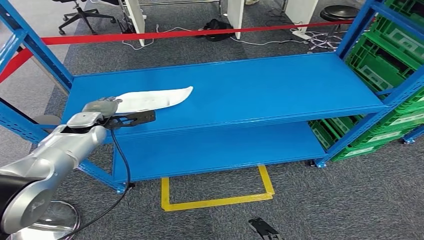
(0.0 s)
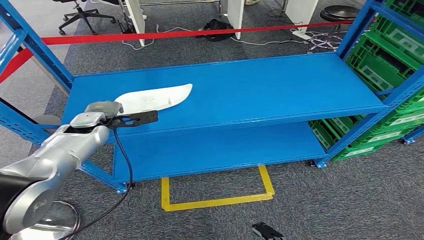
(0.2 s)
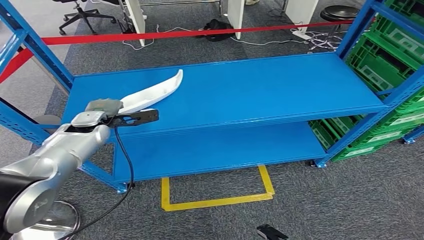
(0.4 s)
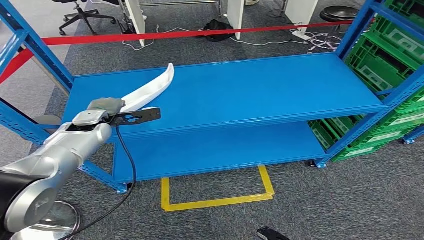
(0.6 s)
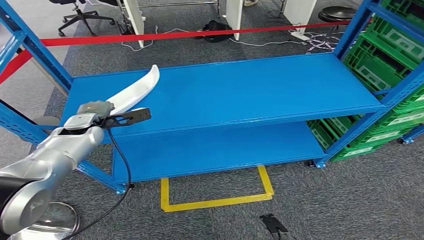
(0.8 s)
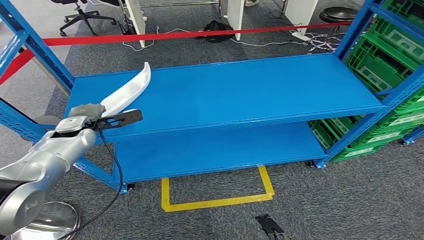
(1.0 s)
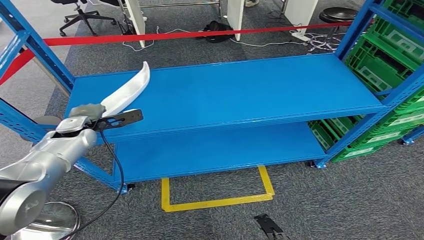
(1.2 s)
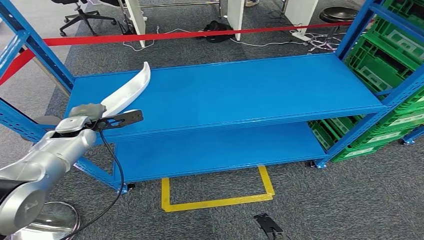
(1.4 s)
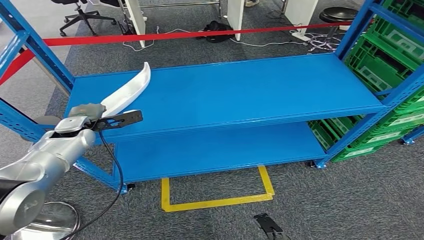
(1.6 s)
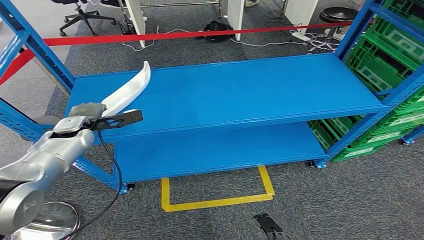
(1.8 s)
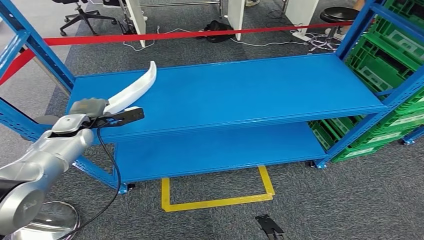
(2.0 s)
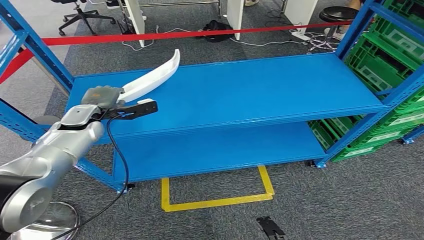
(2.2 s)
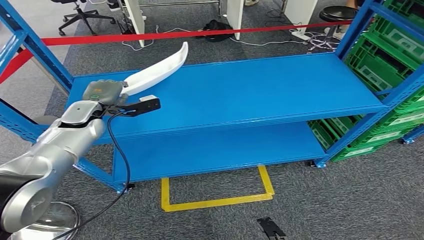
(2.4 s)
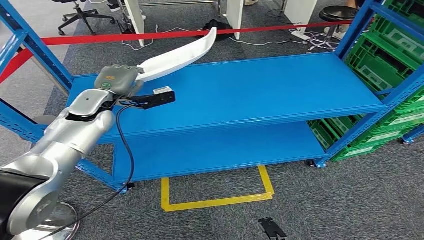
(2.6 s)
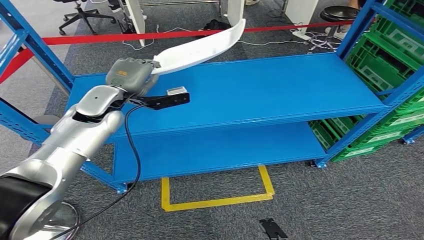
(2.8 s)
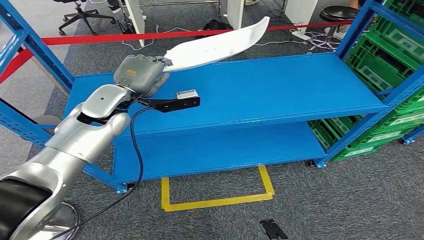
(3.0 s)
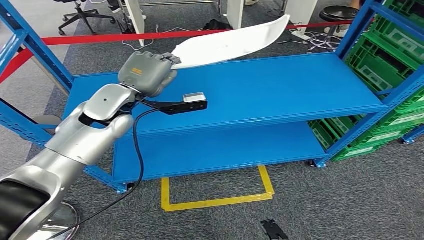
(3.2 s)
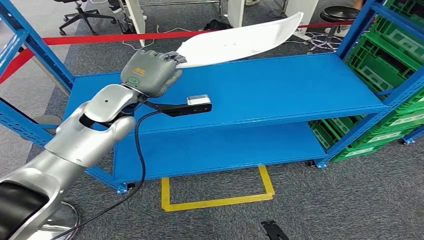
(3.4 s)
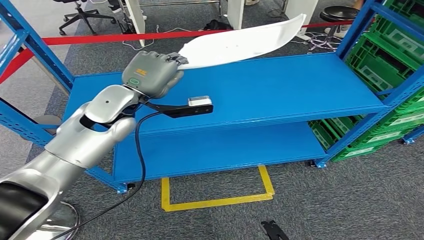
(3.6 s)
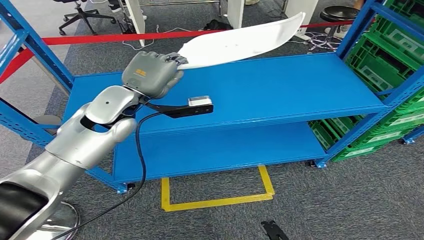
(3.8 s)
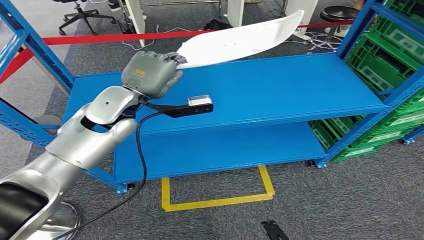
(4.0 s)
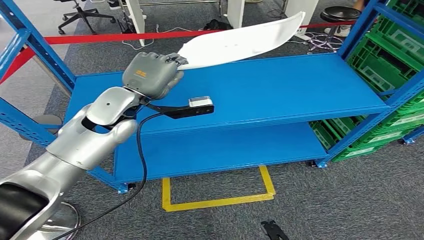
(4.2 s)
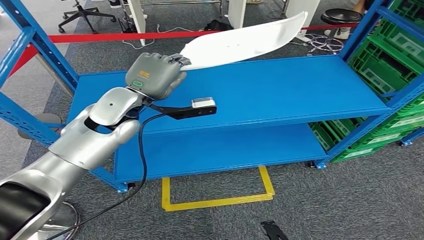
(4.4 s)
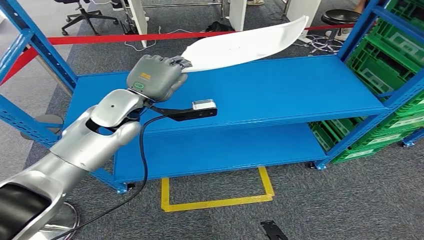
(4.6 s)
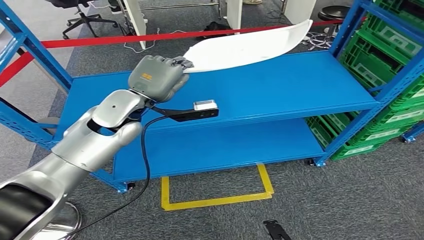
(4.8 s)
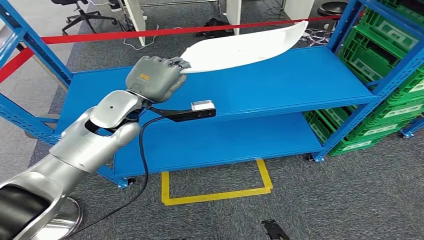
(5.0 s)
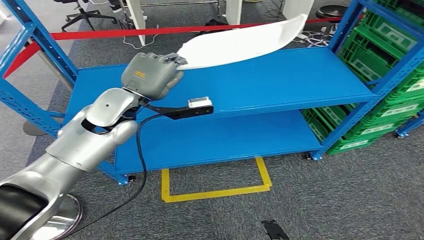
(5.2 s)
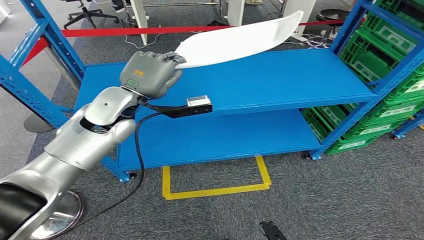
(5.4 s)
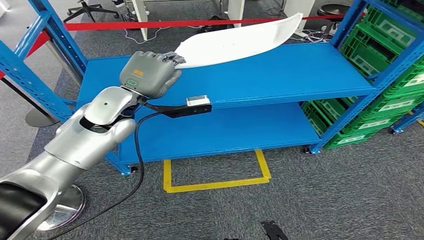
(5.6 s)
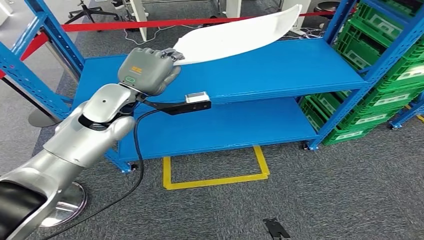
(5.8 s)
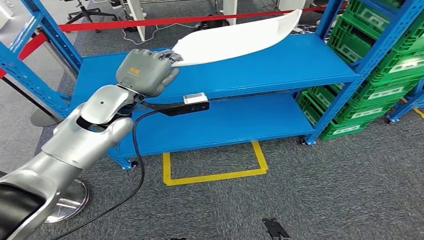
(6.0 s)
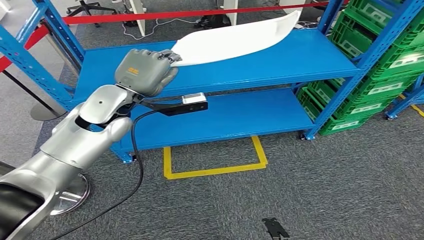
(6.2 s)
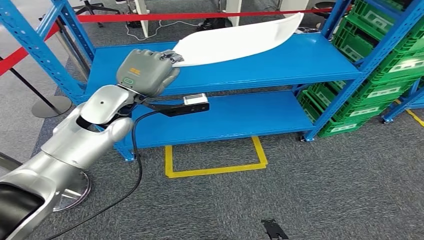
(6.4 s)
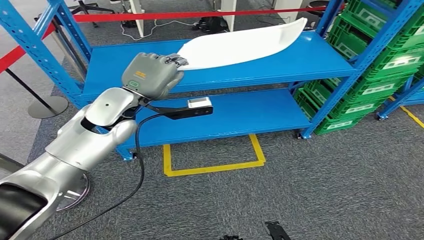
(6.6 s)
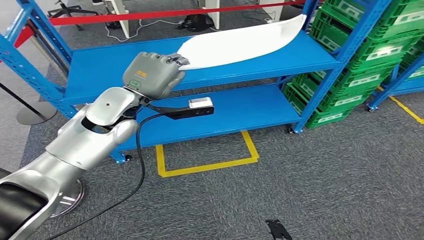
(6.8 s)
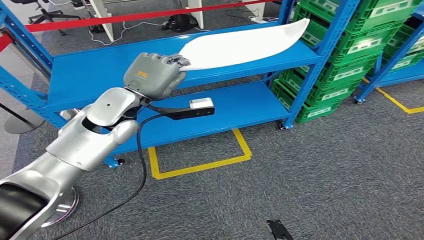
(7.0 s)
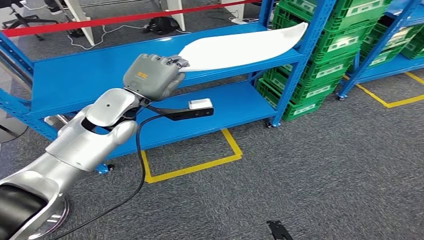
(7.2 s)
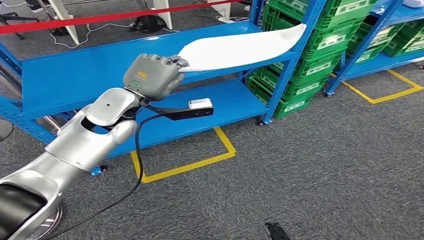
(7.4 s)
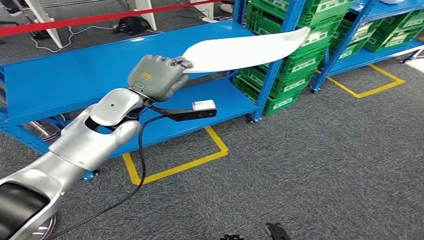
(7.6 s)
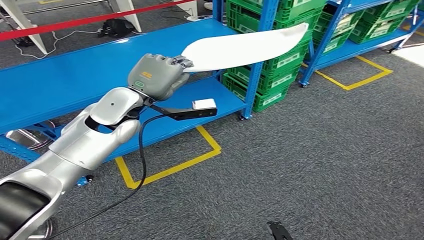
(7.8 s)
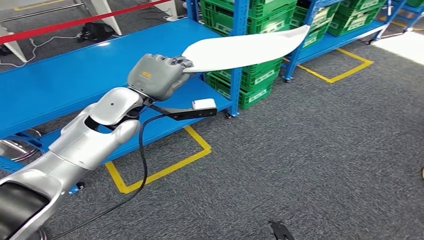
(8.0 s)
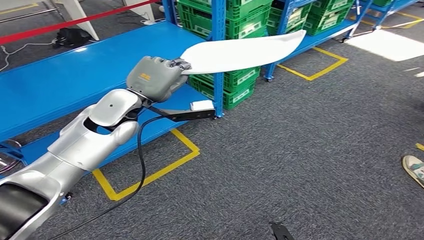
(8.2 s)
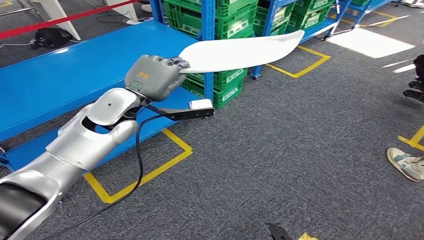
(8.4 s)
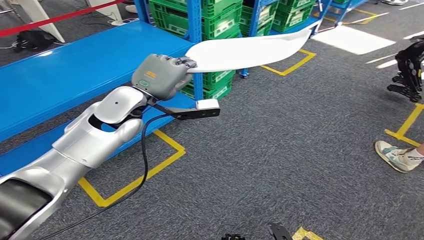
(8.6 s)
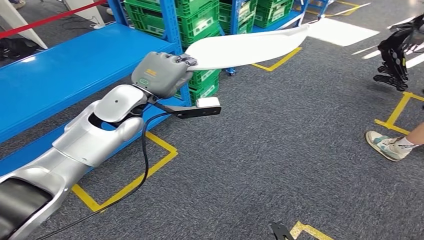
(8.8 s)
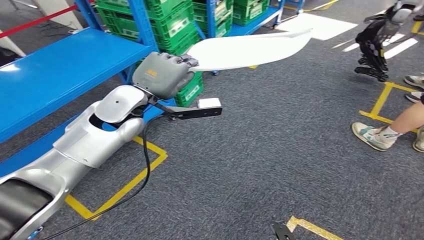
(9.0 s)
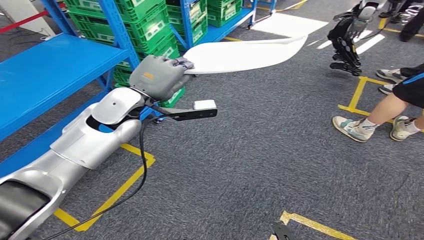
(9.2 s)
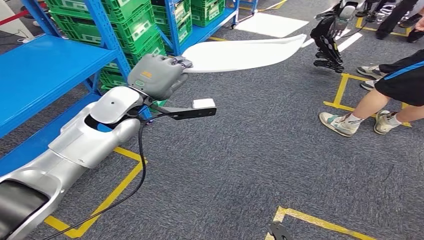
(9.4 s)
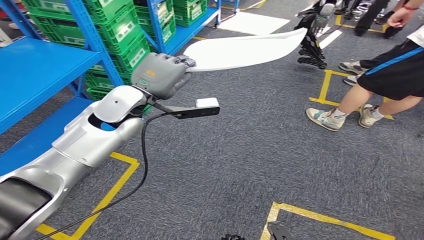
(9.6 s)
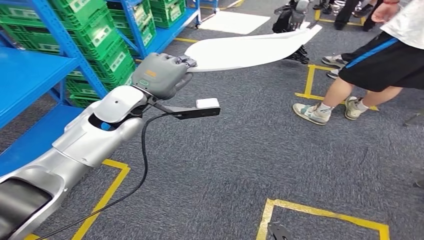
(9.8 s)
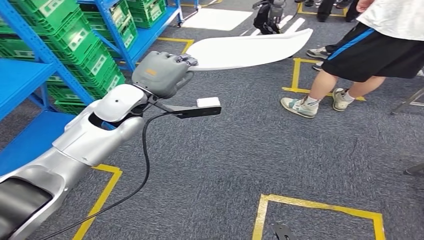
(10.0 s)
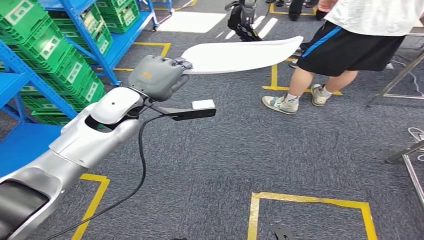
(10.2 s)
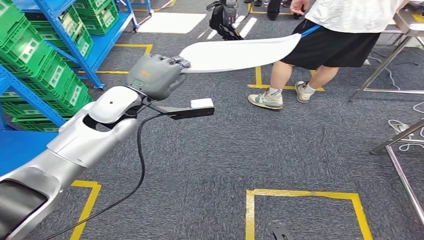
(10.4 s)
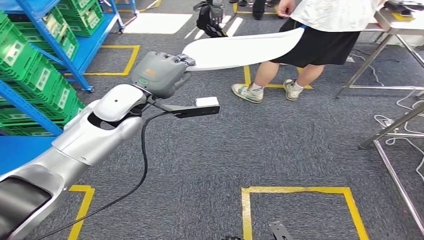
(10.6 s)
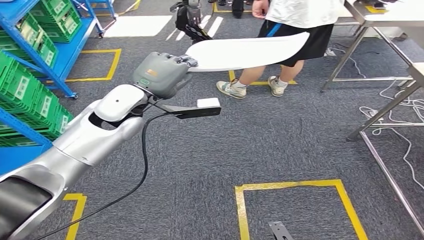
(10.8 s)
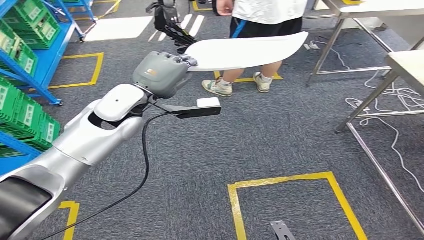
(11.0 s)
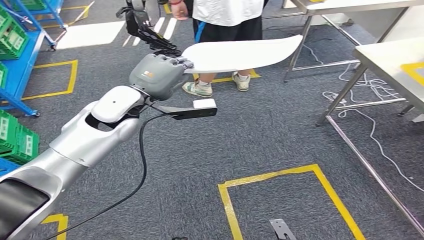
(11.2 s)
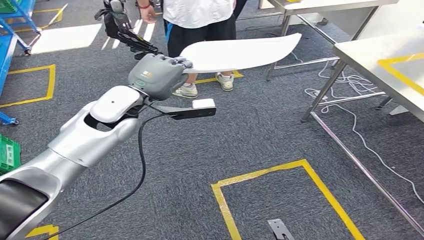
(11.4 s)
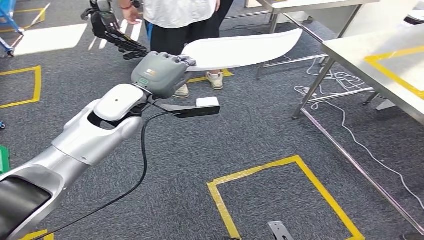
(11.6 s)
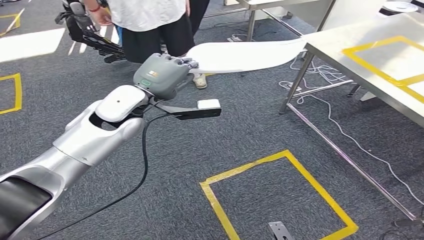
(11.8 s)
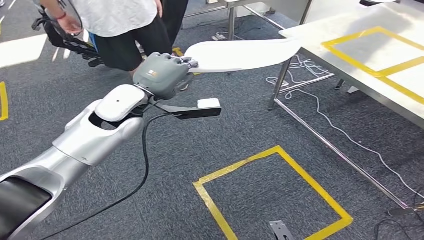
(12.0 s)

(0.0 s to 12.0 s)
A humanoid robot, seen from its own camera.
Step, 0.0 s - 3.2 s: Pick up the small component from the shelf.
0.0 s - 1.6 s: The hands stay close to where they were, moving slightly.
1.6 s - 3.0 s: The left hand travels to the right and upward by approximately 20 cm.

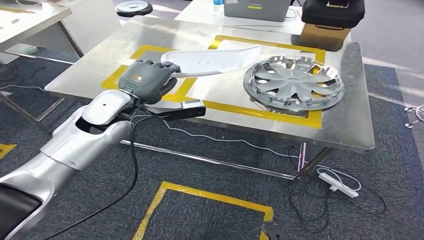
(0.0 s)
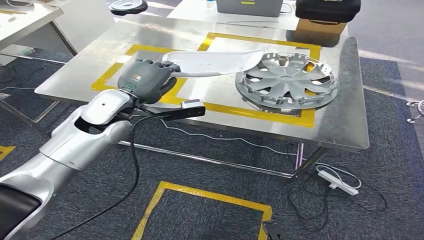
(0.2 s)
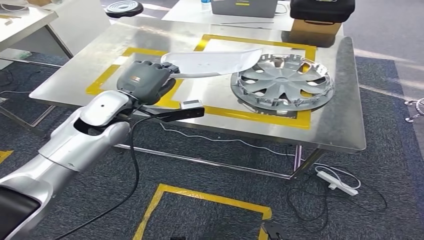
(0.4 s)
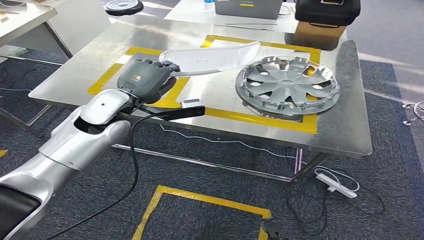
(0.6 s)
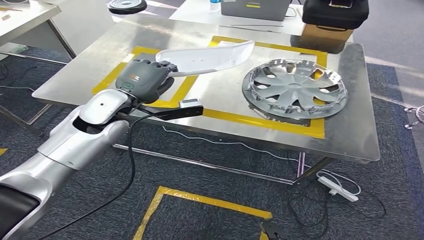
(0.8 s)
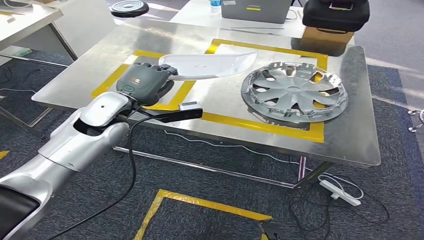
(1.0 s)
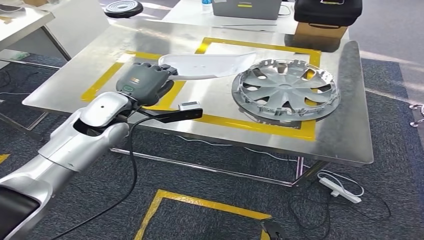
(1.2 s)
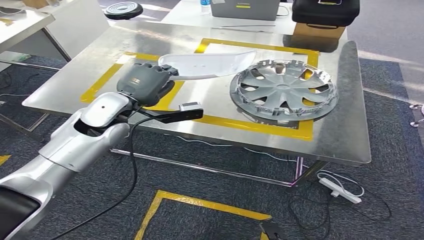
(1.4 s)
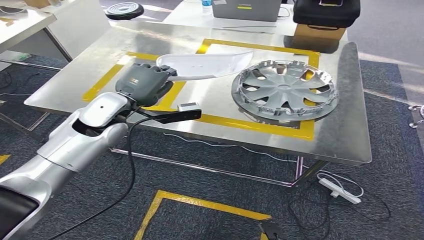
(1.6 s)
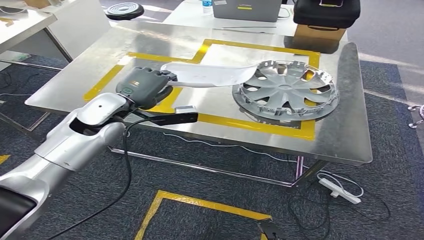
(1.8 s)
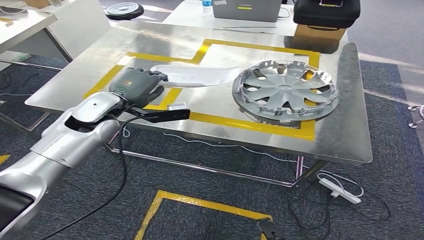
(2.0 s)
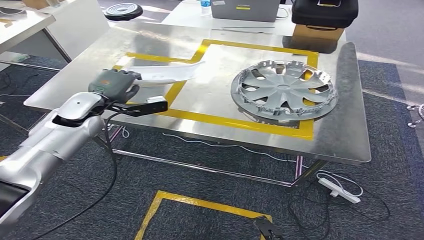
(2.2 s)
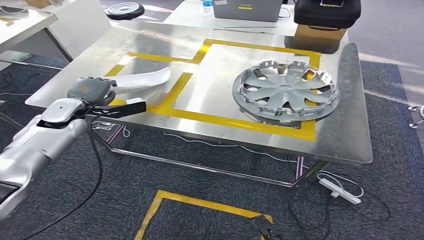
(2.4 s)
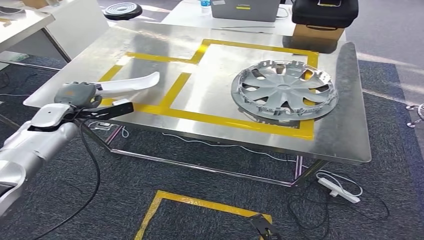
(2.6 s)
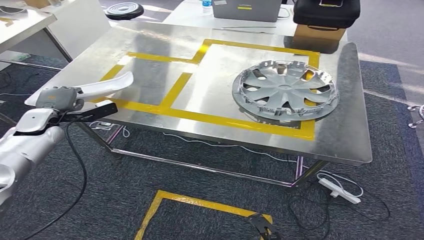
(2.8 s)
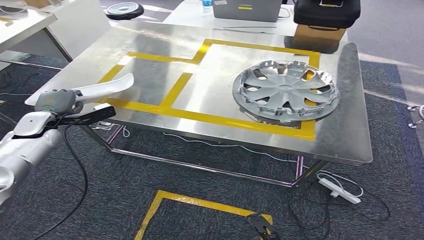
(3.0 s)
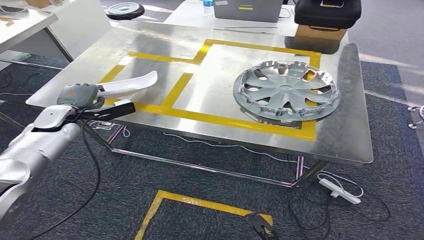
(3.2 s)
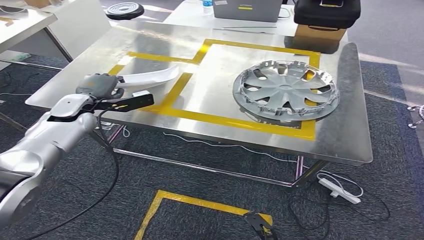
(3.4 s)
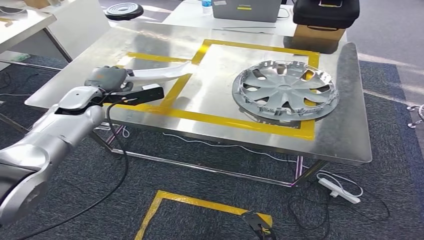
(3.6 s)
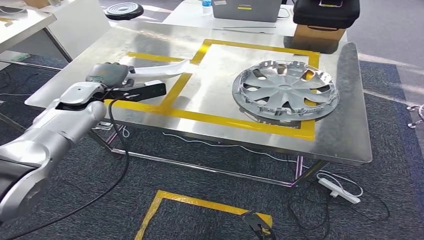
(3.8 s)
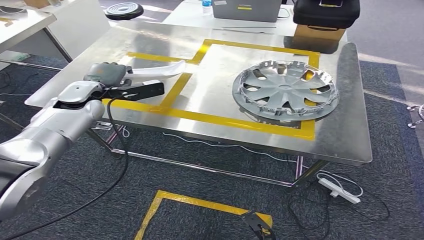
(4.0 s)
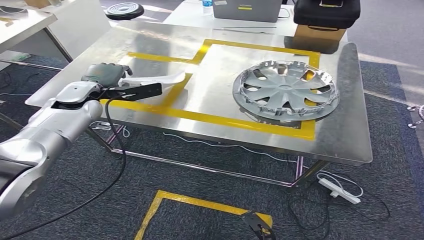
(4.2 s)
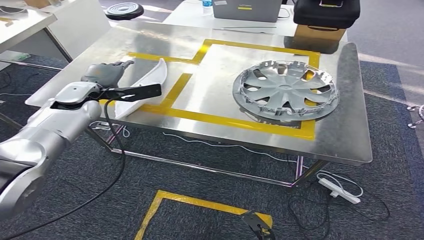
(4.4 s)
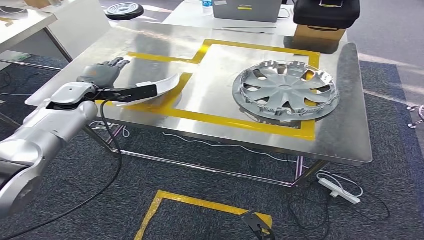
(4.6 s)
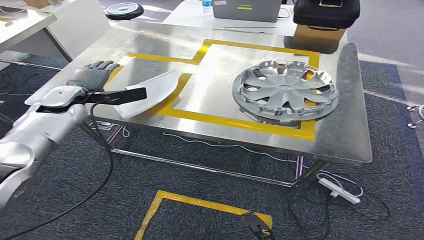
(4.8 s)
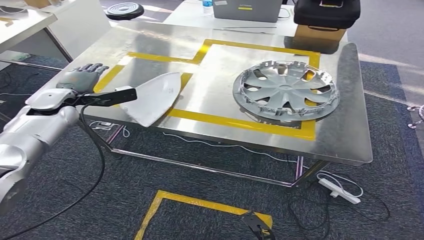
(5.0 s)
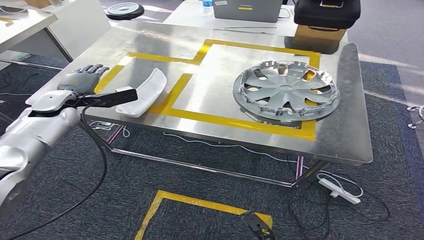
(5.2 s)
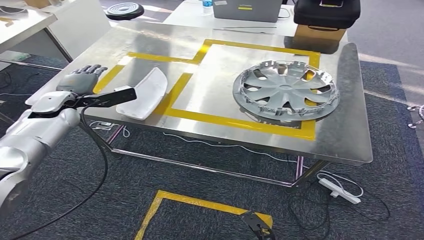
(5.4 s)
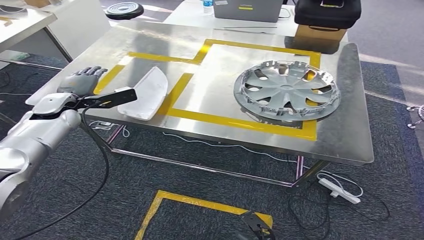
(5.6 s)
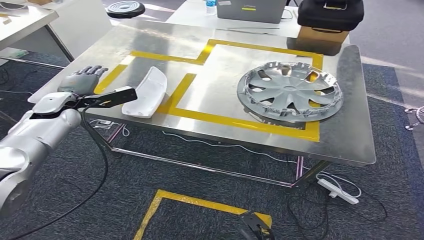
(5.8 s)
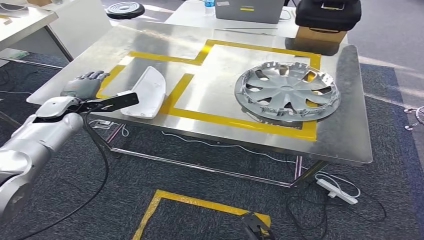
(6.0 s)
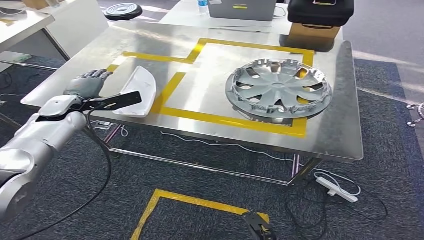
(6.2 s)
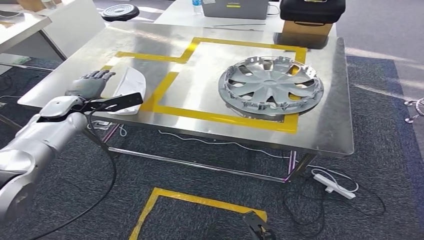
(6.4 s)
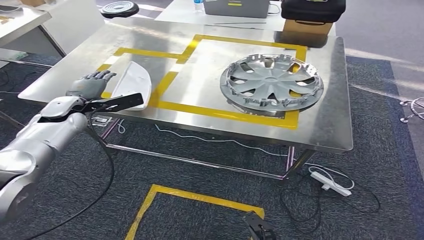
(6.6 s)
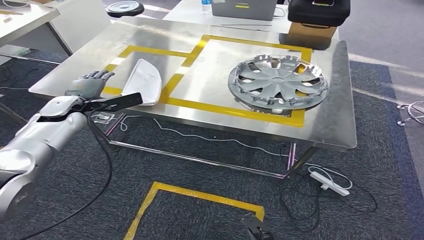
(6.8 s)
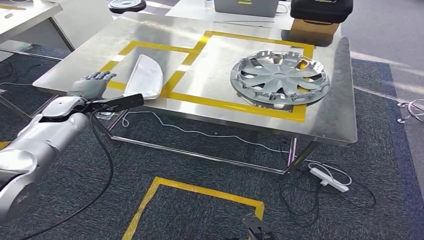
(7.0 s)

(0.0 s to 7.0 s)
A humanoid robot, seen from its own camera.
Step, 0.0 s - 2.0 s: Move the small component to the workbench.
Step, 2.4 s - 6.2 s: Insert the small component into the corresponding slot on the workbench.
2.8 s - 4.2 s: The left hand travels to the right and upward by roughly 15 cm.
4.2 s - 5.6 s: The left hand moves to the left, about 5 cm.
